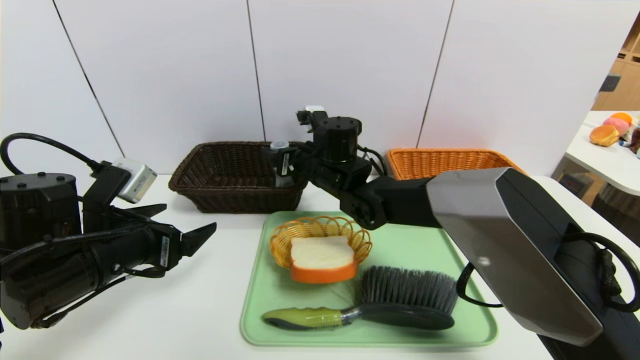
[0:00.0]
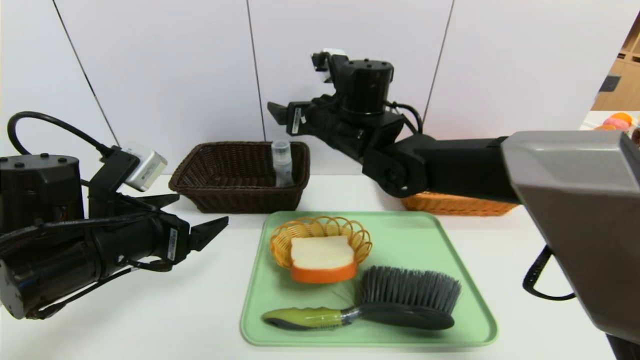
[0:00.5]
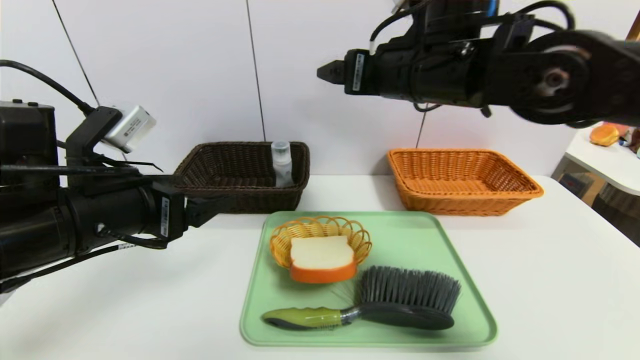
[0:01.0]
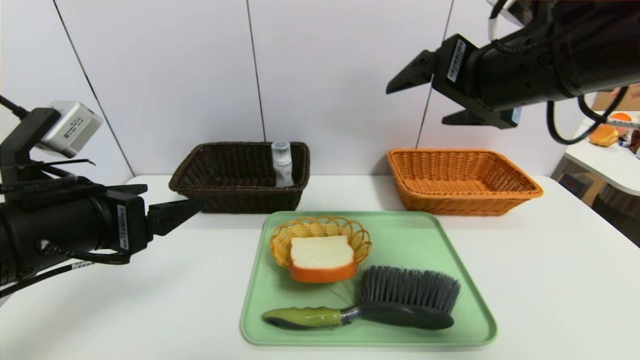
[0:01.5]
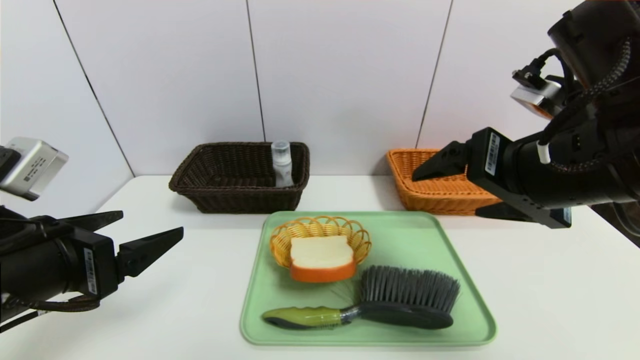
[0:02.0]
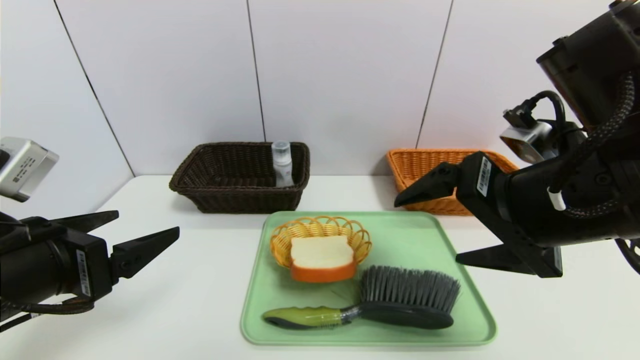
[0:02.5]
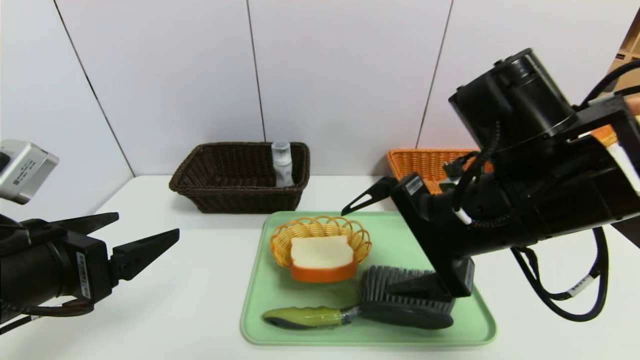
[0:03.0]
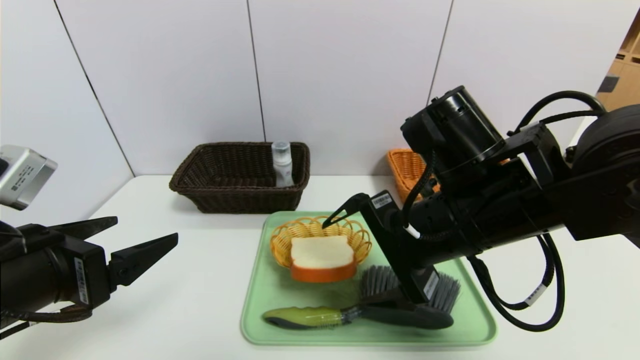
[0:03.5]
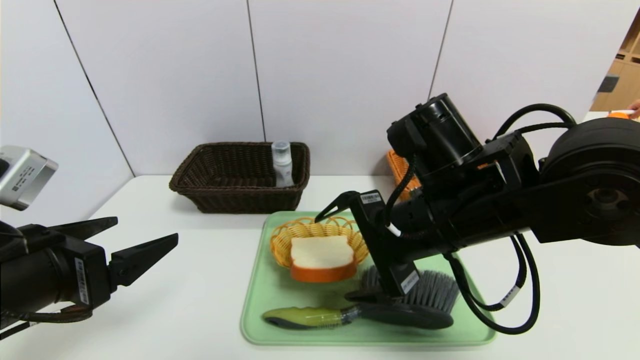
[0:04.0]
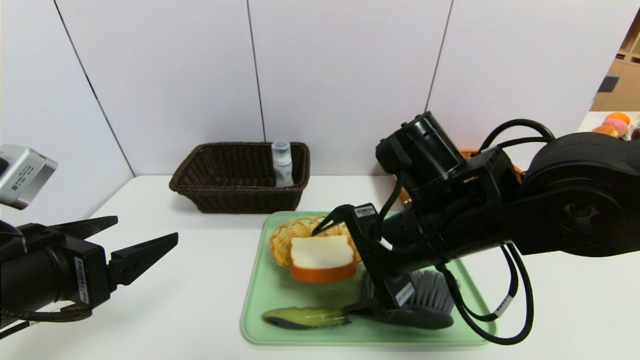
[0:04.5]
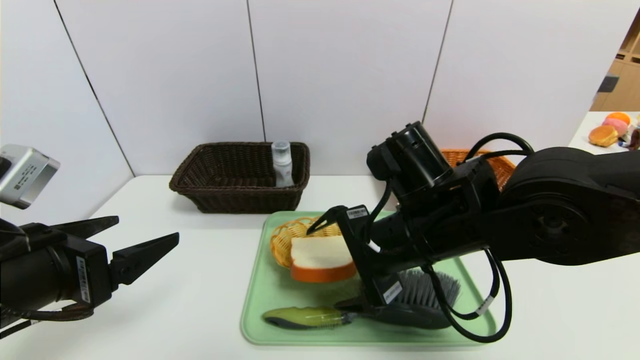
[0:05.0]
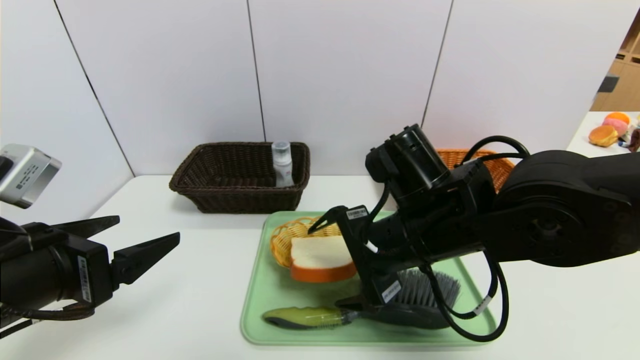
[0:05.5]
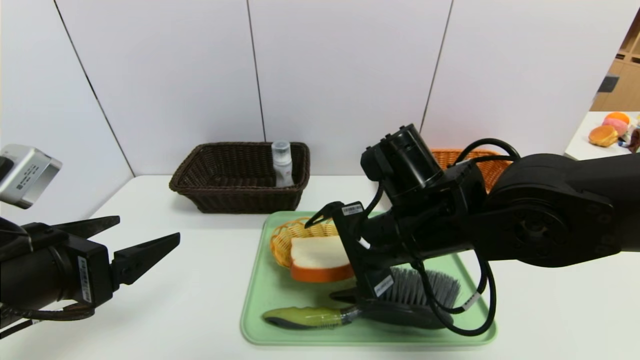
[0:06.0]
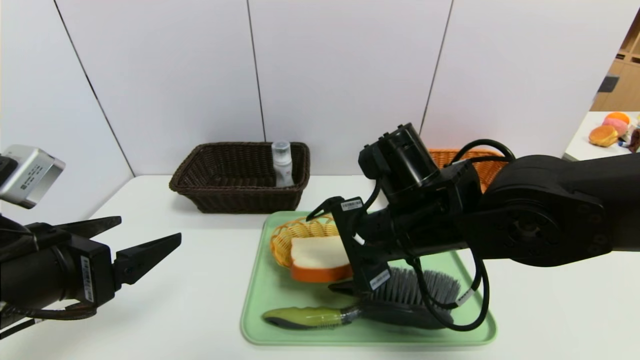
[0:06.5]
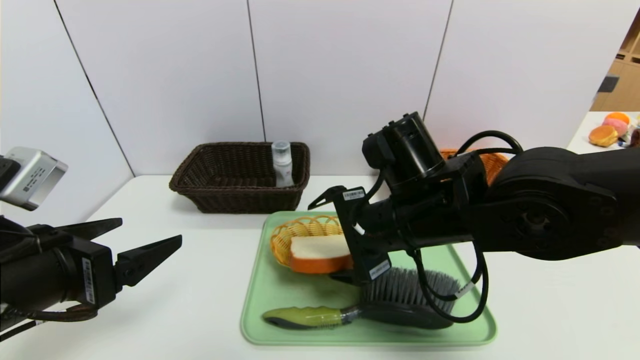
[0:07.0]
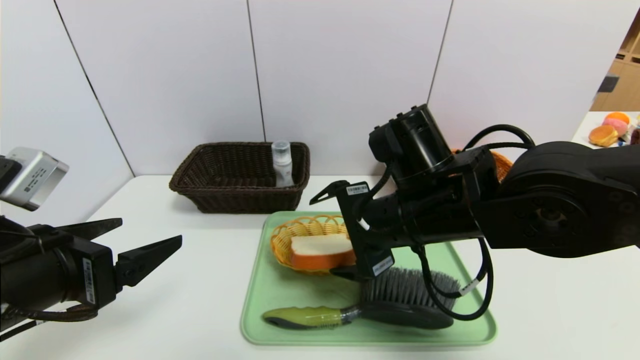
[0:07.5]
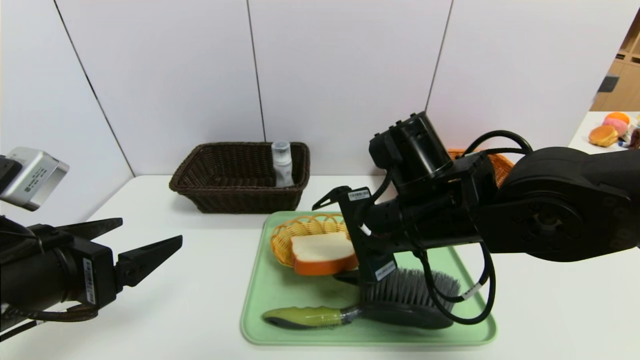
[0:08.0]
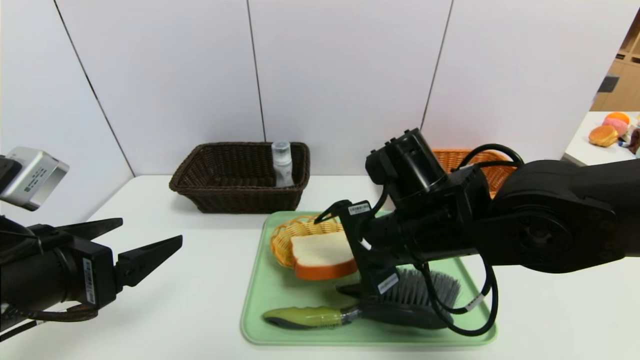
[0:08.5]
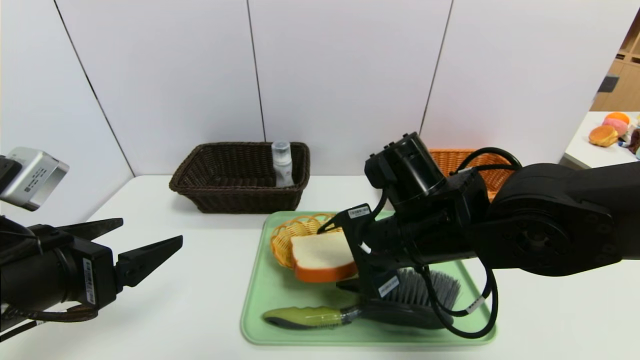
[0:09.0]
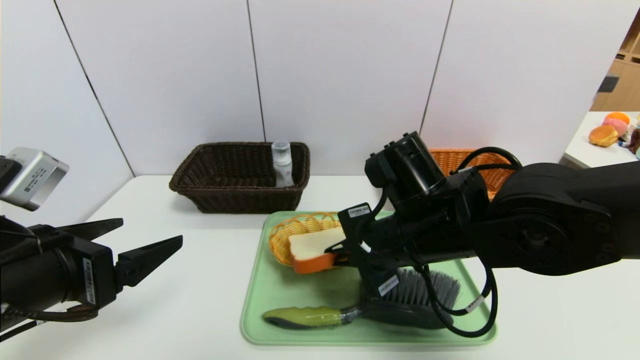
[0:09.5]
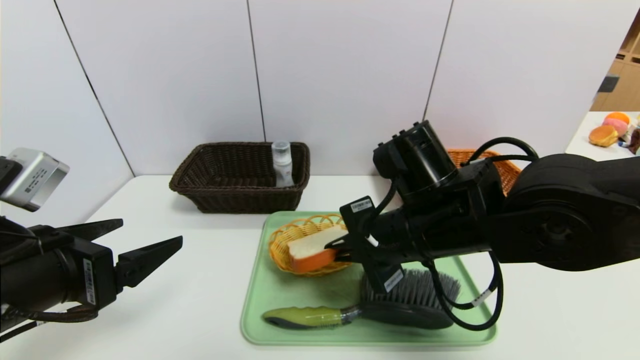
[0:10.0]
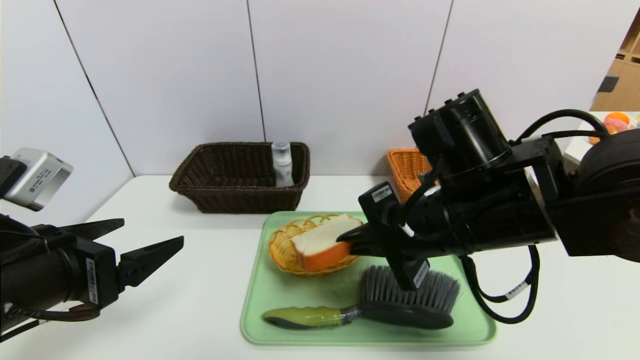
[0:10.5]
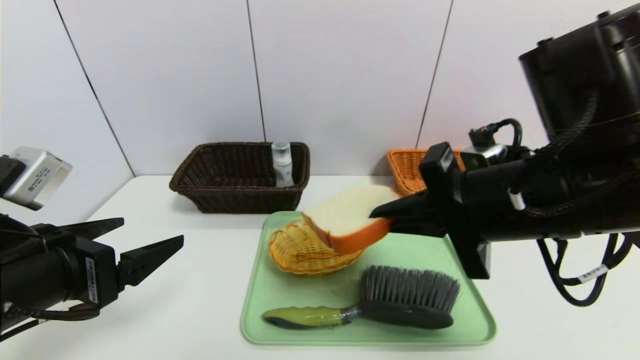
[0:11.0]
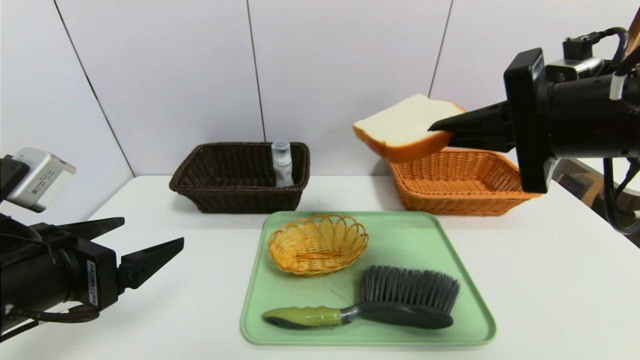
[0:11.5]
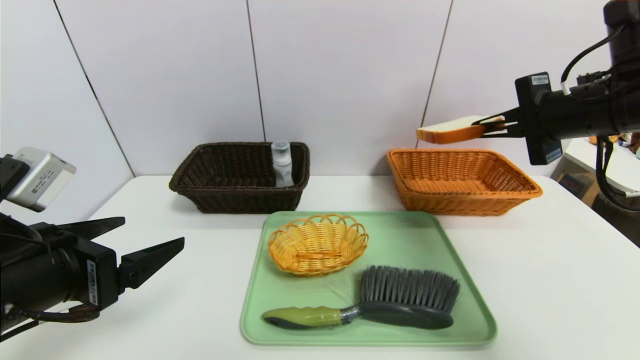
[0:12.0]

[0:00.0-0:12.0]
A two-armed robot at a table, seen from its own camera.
Task of the whole recording: place the food in the right basket with the right gripper, and place the non food items in the left basket with the left gripper.
0:00.0 to 0:02.0: The right gripper heads backward, to the right and upward, covering approximately 30 cm; the left gripper goes roughly 10 cm backward and upward.
0:02.0 to 0:04.0: The right gripper shifts approximately 10 cm to the left and downward.
0:04.0 to 0:08.0: The grippers move only a little.
0:08.0 to 0:10.0: The right gripper closes.
0:10.0 to 0:12.0: The right gripper heads to the right and upward, covering roughly 20 cm.

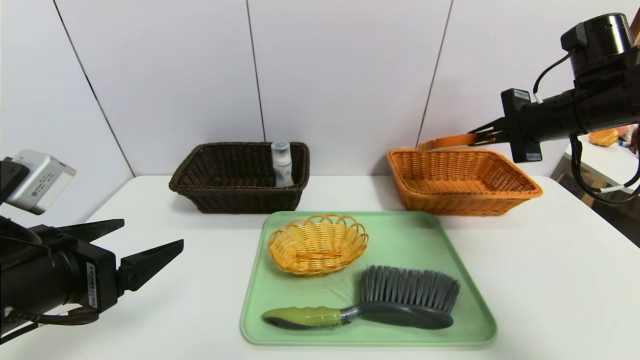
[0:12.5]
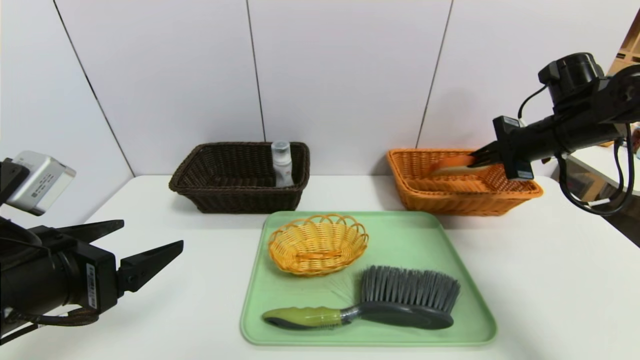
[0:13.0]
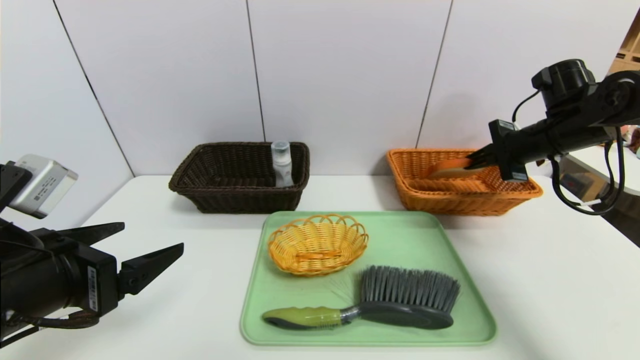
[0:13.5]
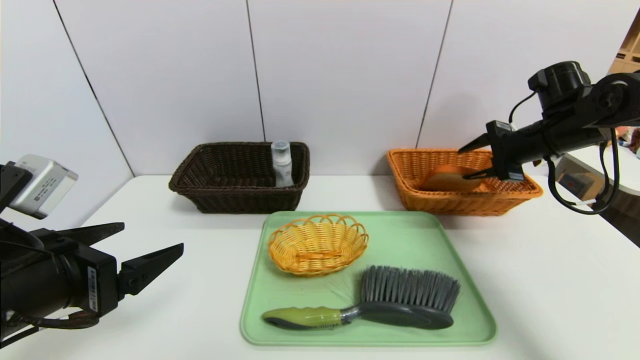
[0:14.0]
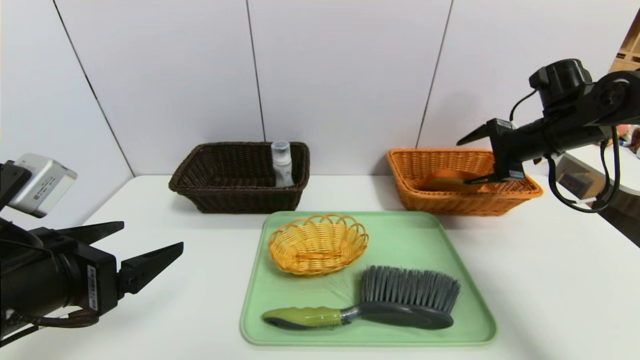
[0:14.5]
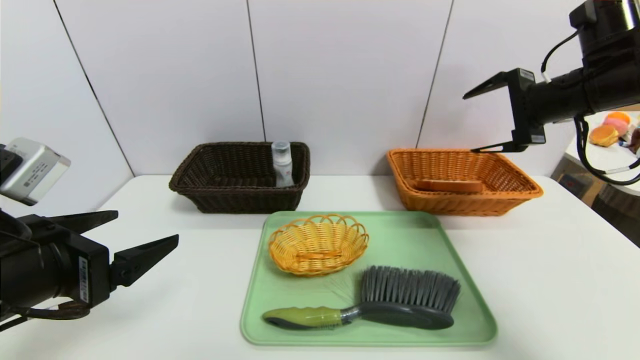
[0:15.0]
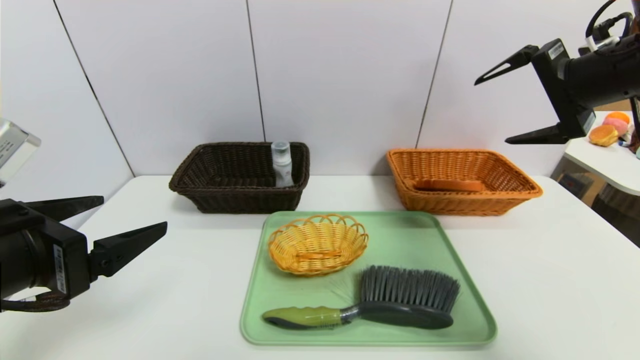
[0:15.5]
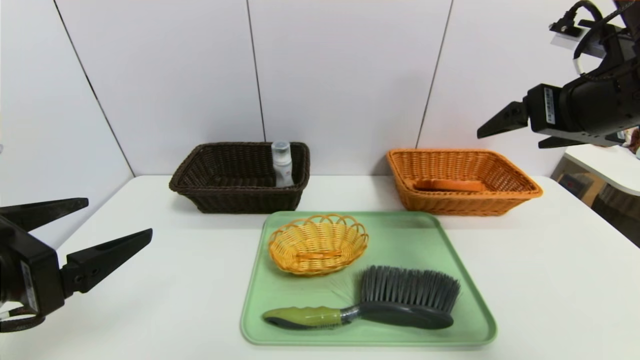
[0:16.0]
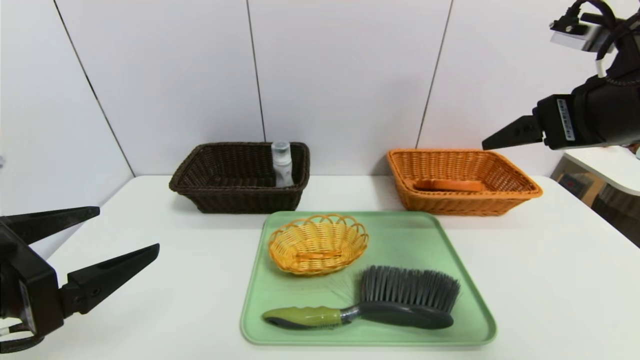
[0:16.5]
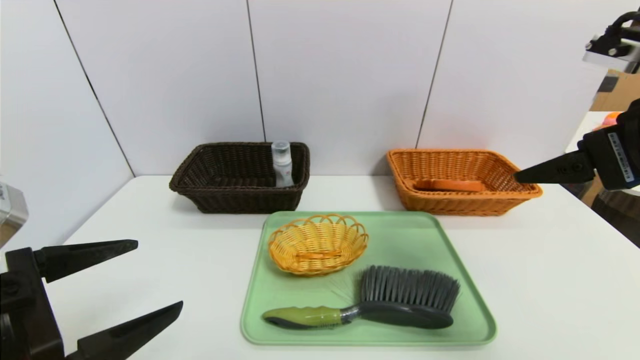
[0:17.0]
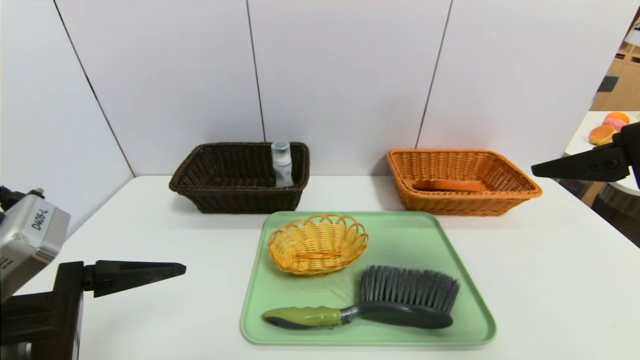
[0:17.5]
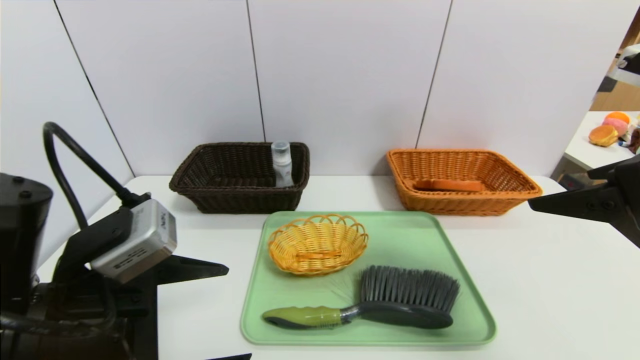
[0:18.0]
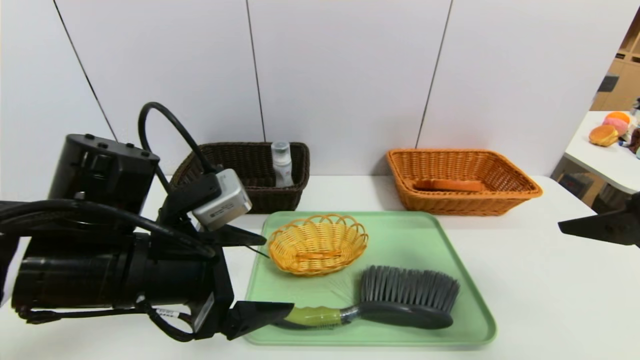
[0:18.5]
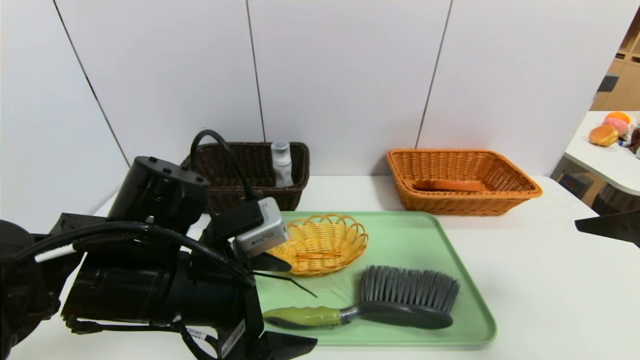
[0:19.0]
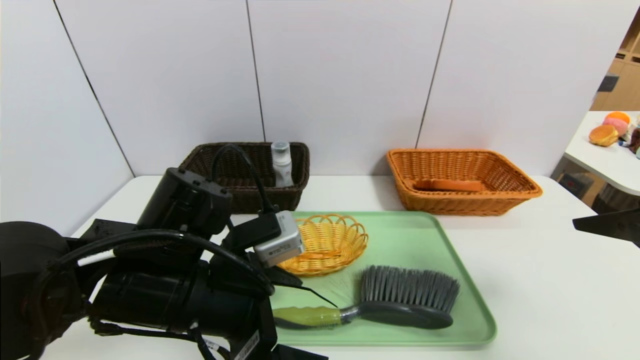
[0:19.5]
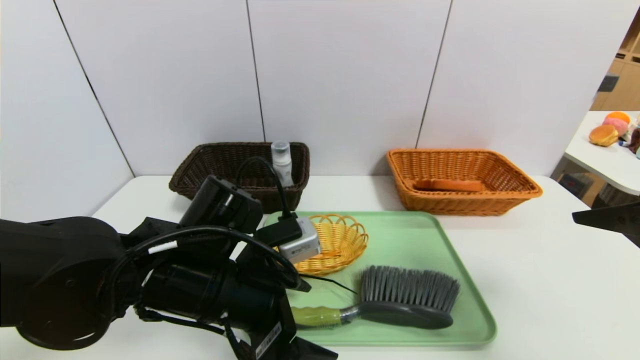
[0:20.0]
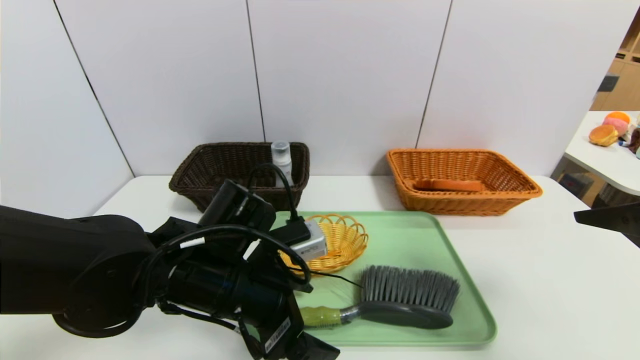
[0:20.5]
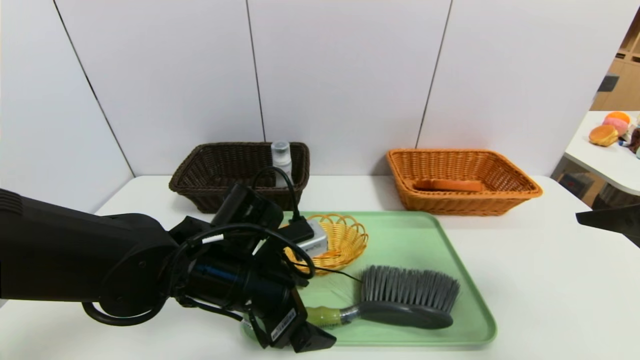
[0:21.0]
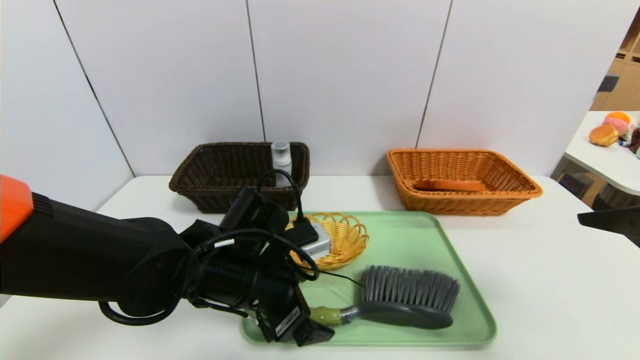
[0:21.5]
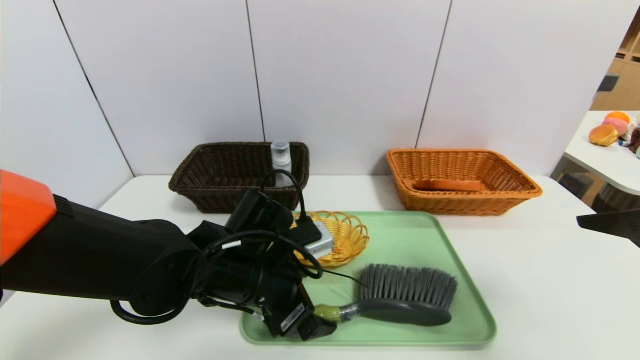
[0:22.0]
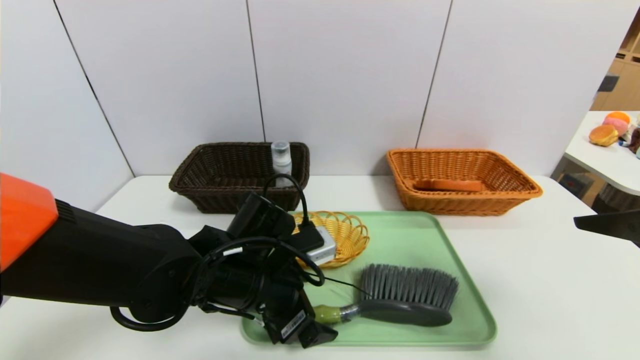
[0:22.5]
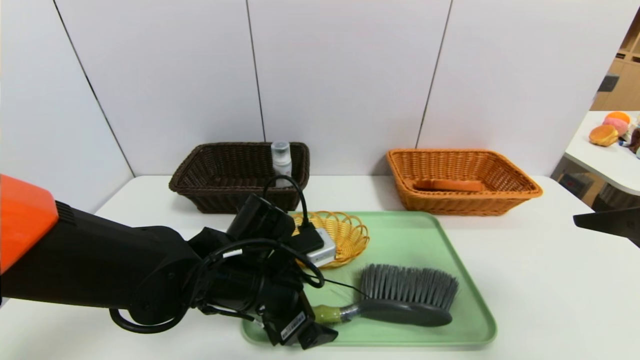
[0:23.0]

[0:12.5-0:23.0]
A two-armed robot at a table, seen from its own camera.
Task of the whole recording: place the food in the right basket with the right gripper, and place the non food items in the left basket with the left gripper.
Step, 0:12.5 to 0:15.0: Grasp the bread slice and put it in the right basket.
0:12.5 to 0:14.5: The right gripper changes place by approximately 5 cm, and opens.
0:14.5 to 0:16.5: The right gripper travels backward, upward and to the left by about 20 cm.
0:16.5 to 0:19.0: The left gripper shifts roughly 15 cm to the right, forward and downward. The right gripper travels backward by roughly 10 cm.
0:19.0 to 0:21.0: The left gripper goes approximately 5 cm downward.
0:21.0 to 0:23.0: The grippers stay close to where they were, moving slightly.
